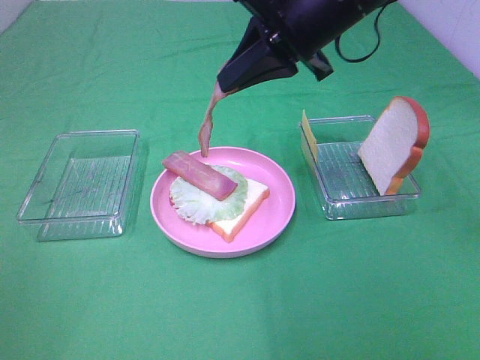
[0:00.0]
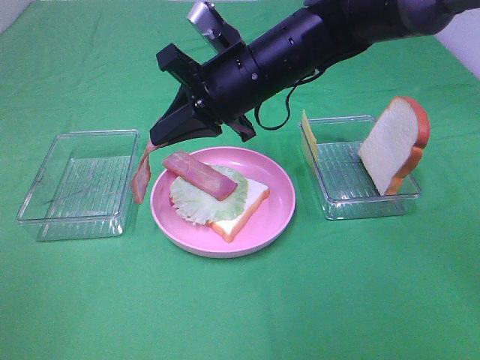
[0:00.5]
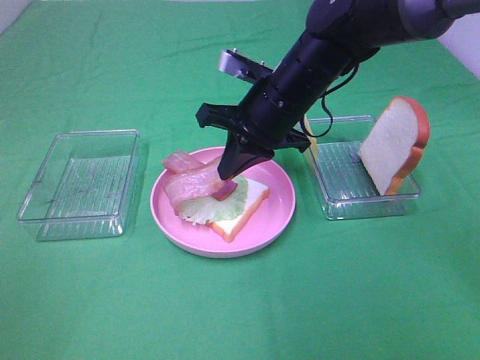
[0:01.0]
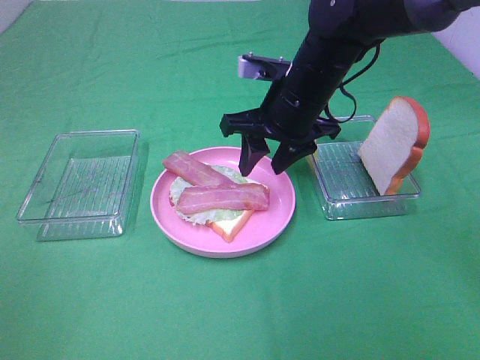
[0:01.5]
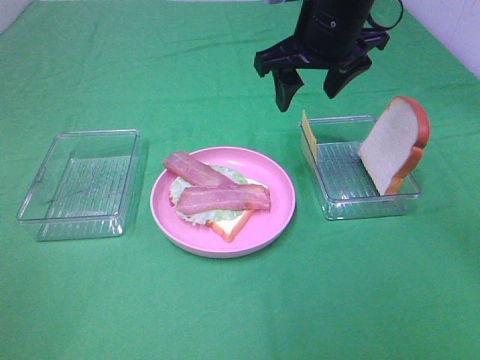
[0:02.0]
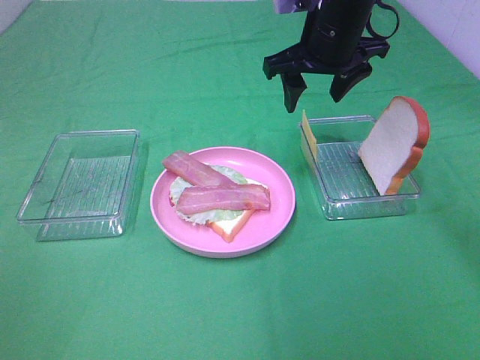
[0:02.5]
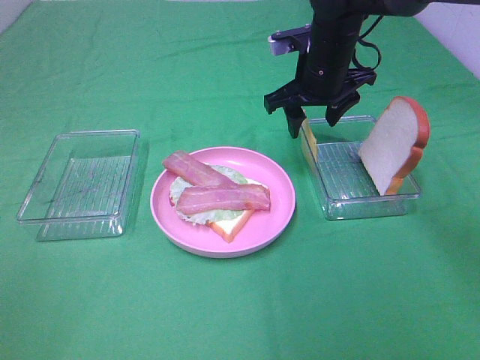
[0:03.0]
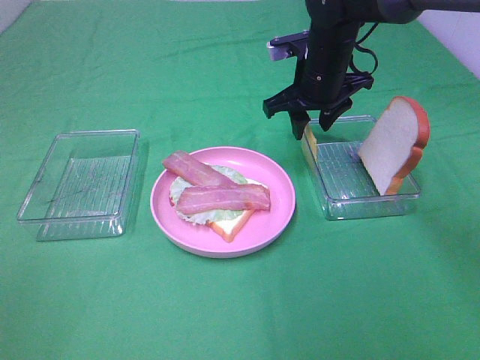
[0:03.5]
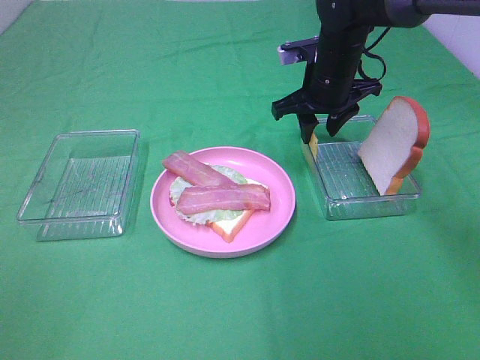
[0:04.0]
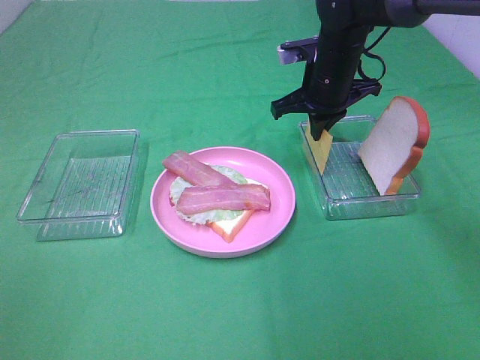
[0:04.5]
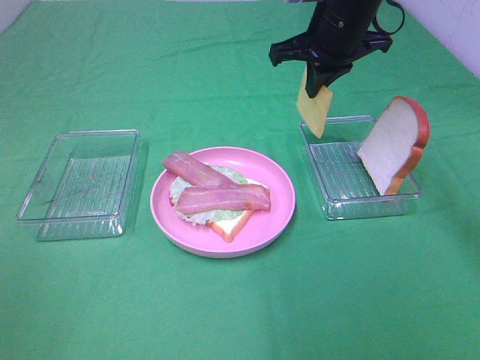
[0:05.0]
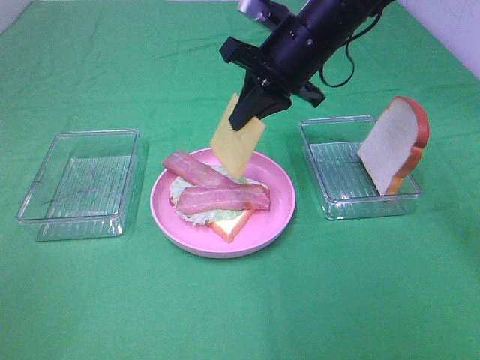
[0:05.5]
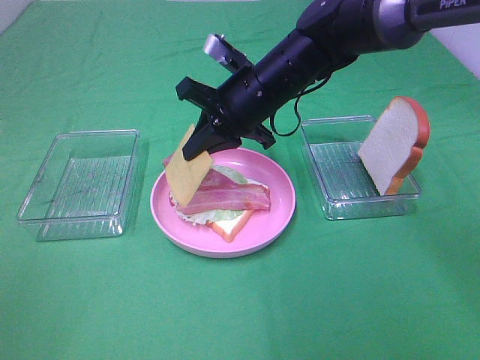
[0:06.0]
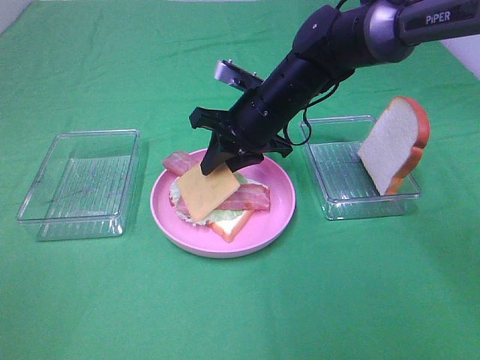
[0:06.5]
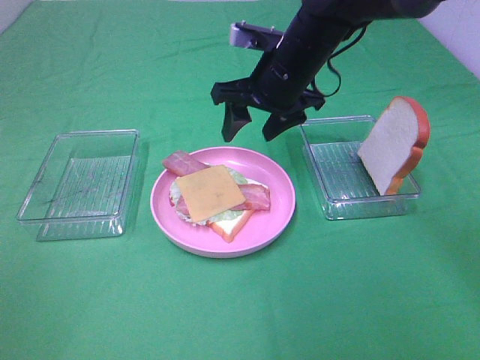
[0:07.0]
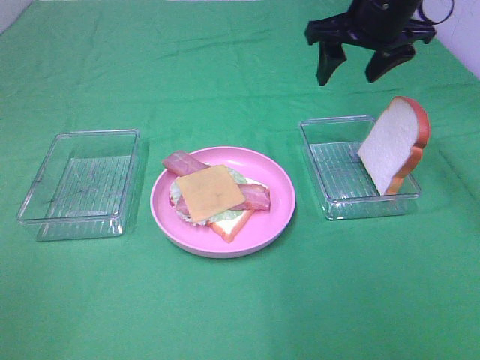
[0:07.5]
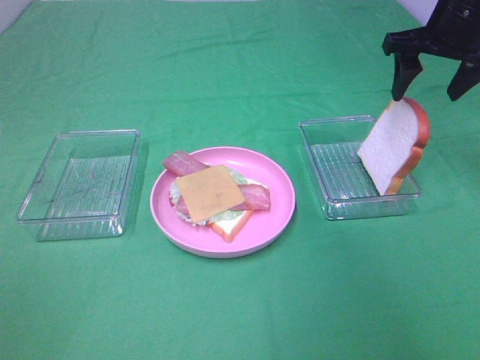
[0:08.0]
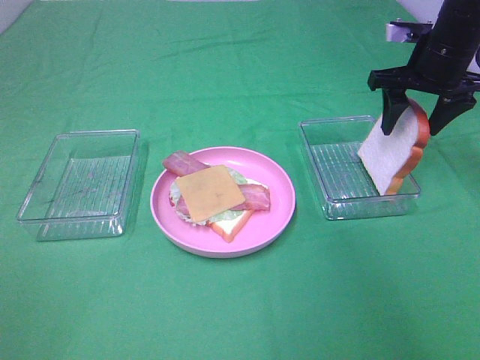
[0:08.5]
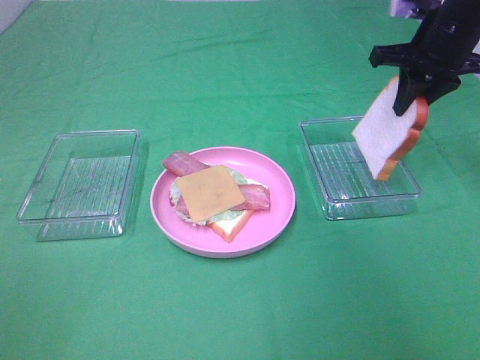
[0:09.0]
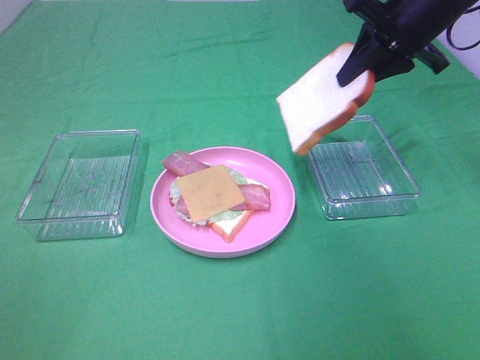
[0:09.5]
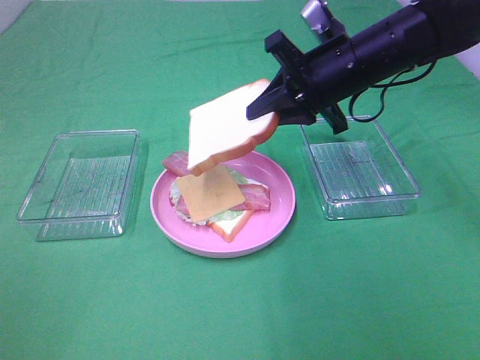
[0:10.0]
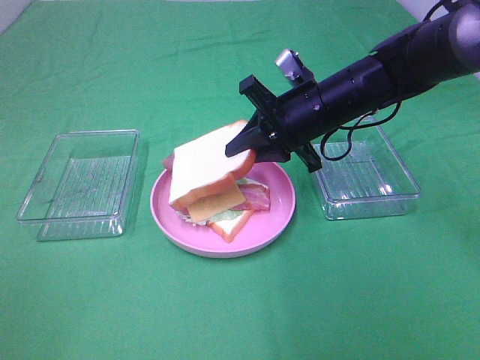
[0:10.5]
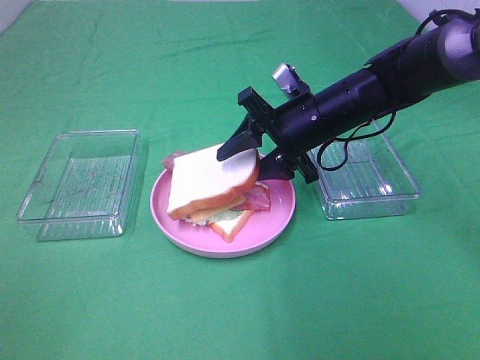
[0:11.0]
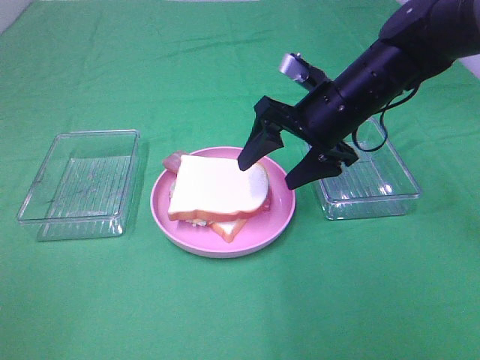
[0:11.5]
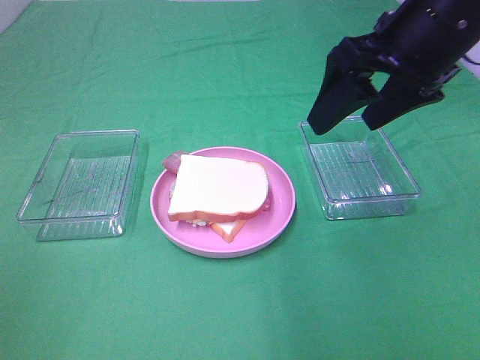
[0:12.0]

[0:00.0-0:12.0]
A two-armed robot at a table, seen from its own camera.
Task of the whole recording: Make sandwiches.
Step, 0:00.0 to 0:01.5: Right hand:place bacon on bacon.
Step, 0:02.0 to 0:04.0: Right hand:grab the cheese slice.
Step, 0:04.5 to 0:06.5: Right hand:place the cheese slice on top of the bacon.
Step, 0:07.0 to 0:08.5: Right hand:grab the bread slice.
Step, 0:09.0 to 0:11.5: Right hand:place the bread slice on the cheese slice.
0:00.0 to 0:02.0: The right gripper moves some 10 cm downward and comes back, and opens its fingers.
0:02.0 to 0:04.0: The right gripper goes roughly 10 cm downward and forward.
0:04.0 to 0:06.0: The right gripper shifts about 10 cm to the left and backward, and closes.
0:06.0 to 0:08.0: The right gripper shifts roughly 25 cm to the right and upward, and opens up.
0:08.0 to 0:10.0: The right gripper moves to the left and downward, approximately 15 cm, and closes.
0:10.0 to 0:12.0: The right gripper shifts about 15 cm upward and backward, and opens its fingers.

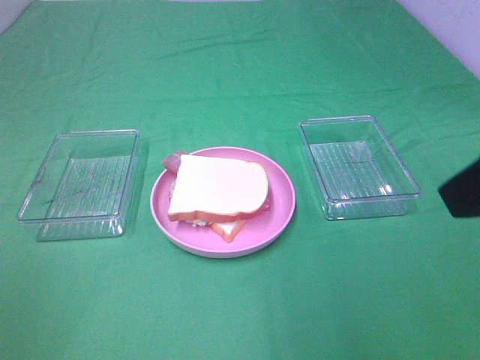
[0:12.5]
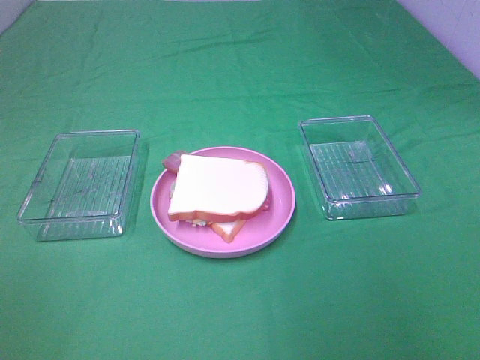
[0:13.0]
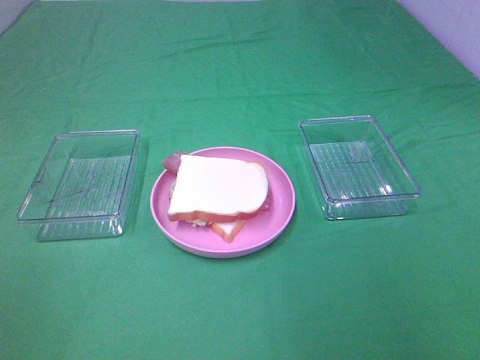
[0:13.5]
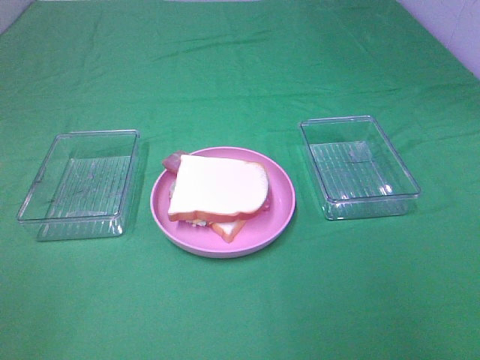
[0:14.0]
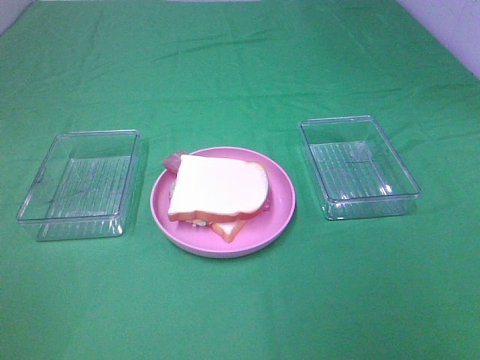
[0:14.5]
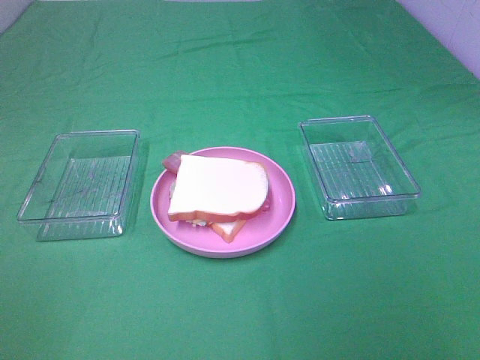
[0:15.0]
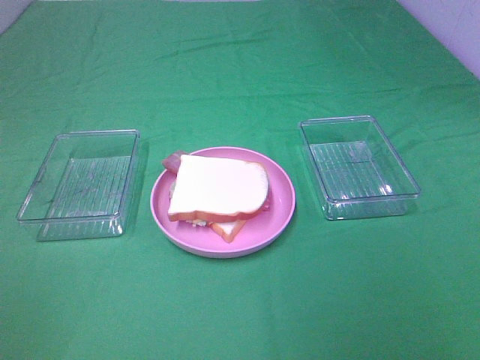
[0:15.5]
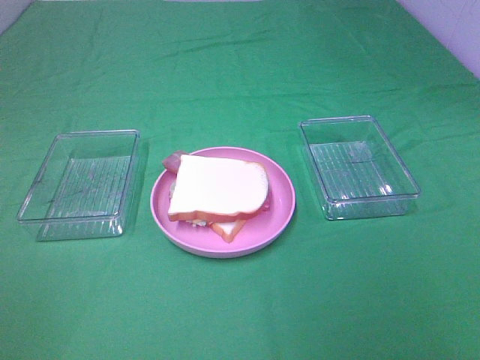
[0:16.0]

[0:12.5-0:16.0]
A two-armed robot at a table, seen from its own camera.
Task of the whole recording: Make sandwiches.
0:12.5 to 0:14.5: The right gripper travels backward and to the right by about 15 cm.

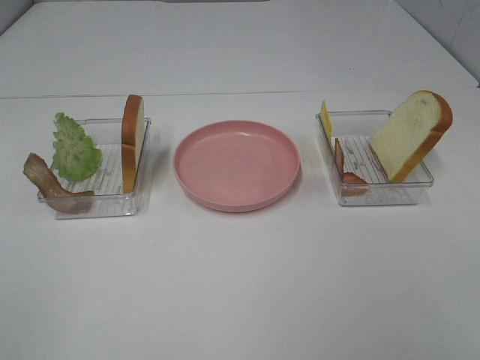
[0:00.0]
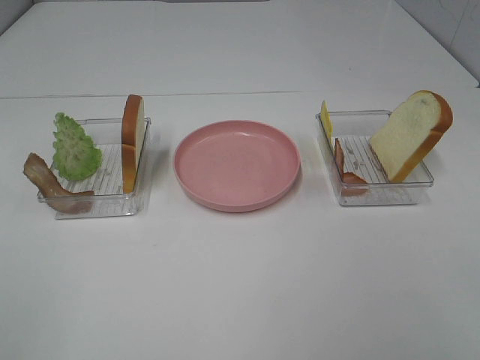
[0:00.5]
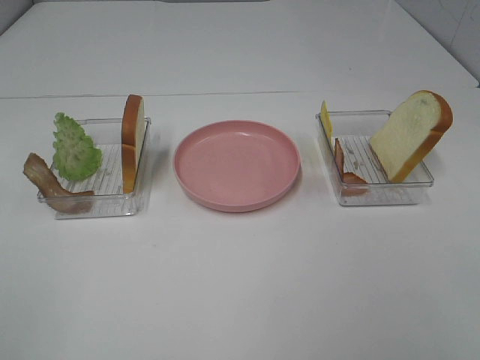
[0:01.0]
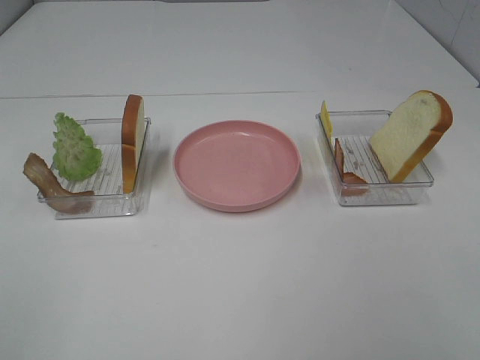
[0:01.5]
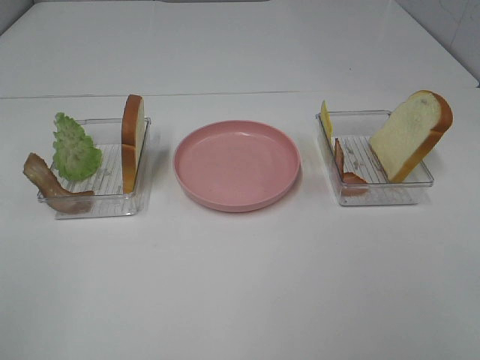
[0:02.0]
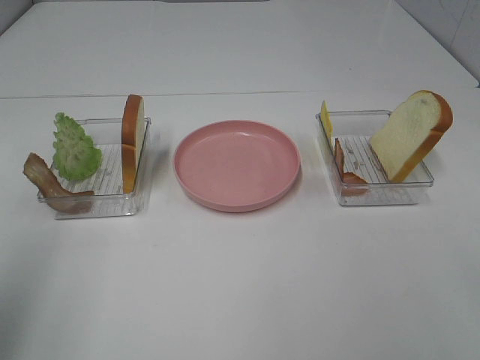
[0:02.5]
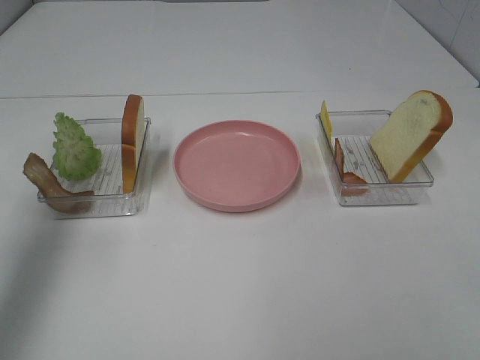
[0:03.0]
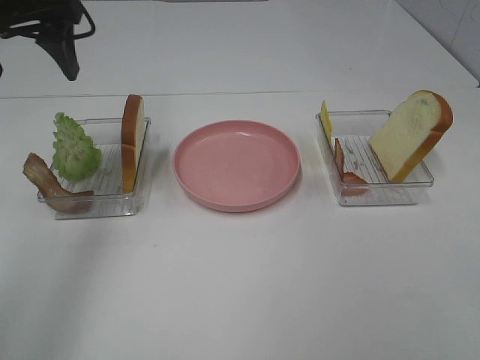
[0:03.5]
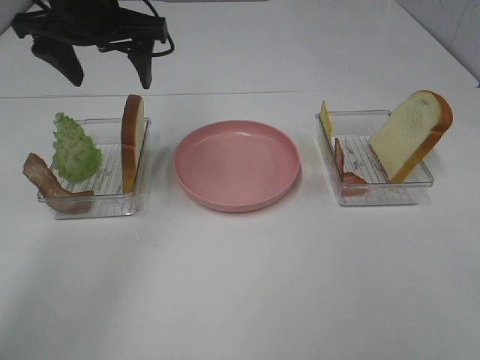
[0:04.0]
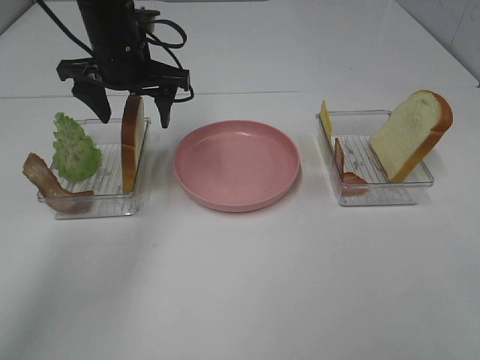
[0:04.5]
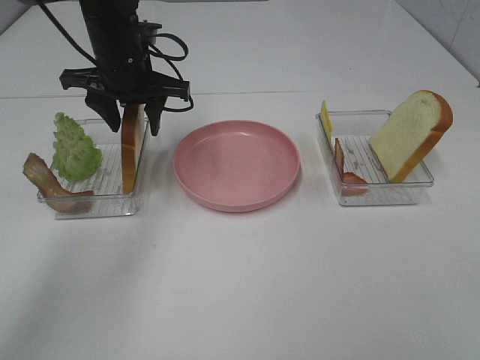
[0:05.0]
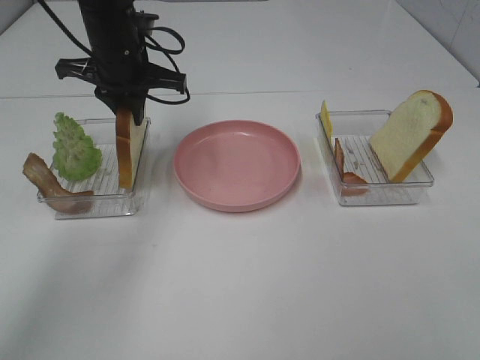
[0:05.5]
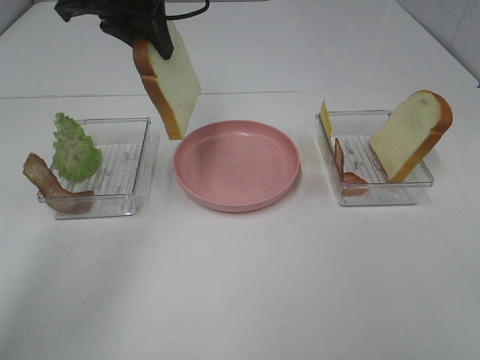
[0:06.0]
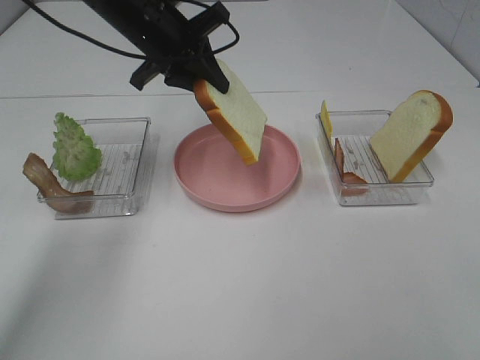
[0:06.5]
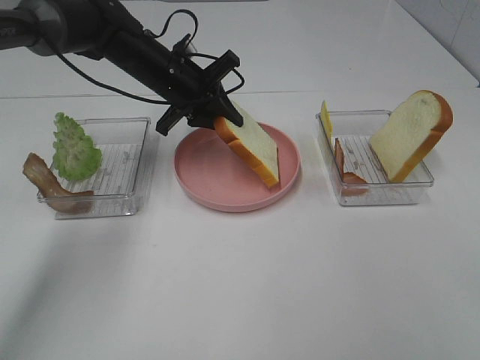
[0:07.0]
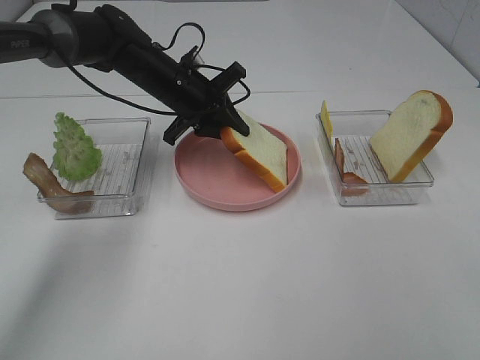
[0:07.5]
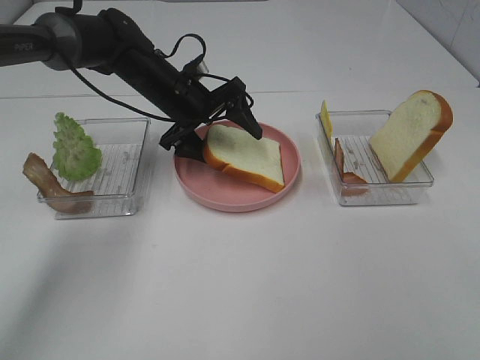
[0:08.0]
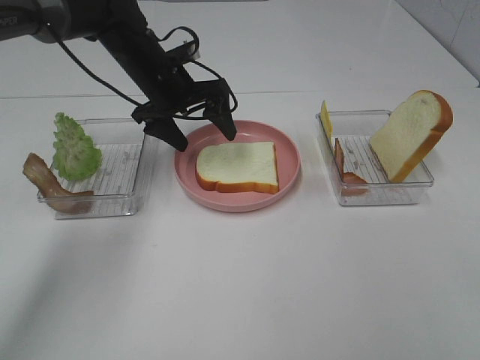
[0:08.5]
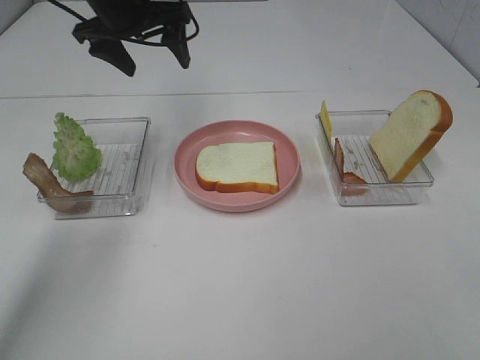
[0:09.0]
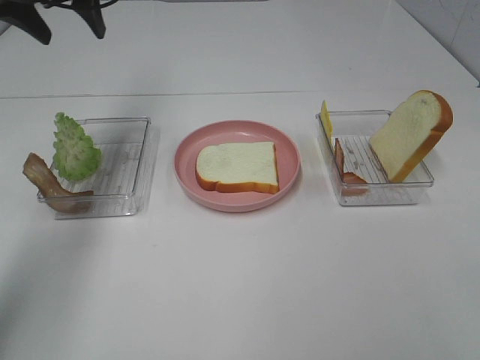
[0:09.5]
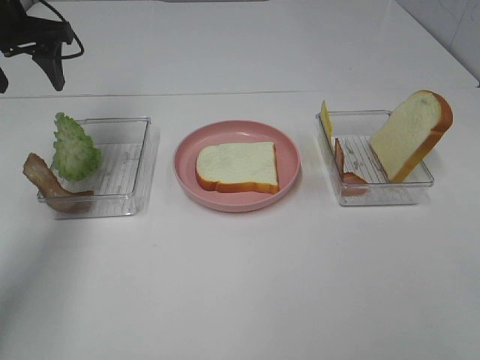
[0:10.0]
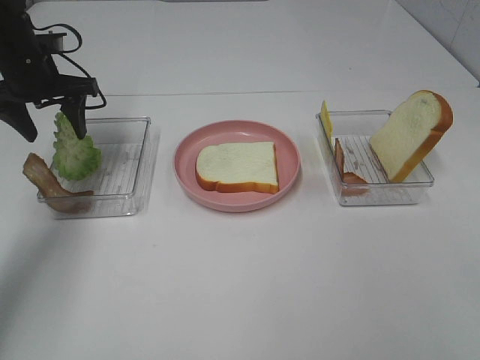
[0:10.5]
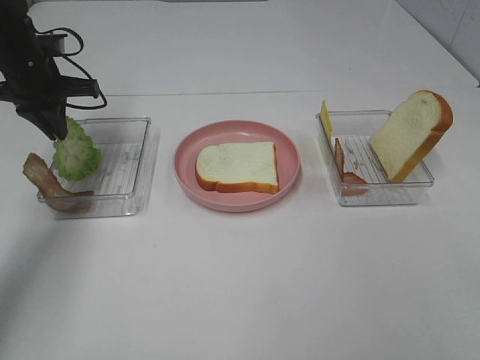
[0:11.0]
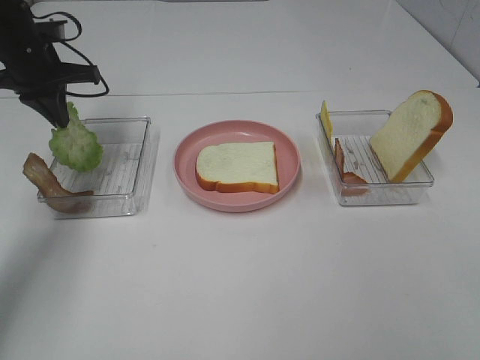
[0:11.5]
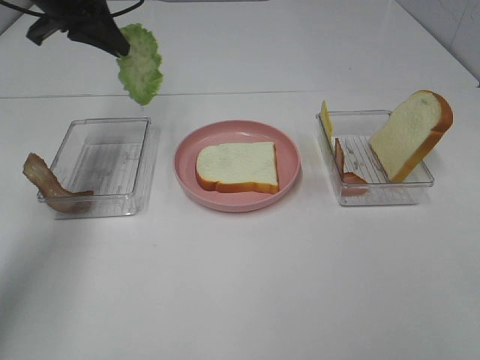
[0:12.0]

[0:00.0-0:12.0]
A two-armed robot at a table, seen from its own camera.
Task of the whole recording: Make sandwiches.
Step, 0:00.0 to 0:05.0: Left hand:grab the bread slice.
Step, 0:05.5 to 0:08.5: Left hand:place the bread slice on the plate.
Step, 0:09.0 to 0:11.0: Left hand:grab the lettuce slice.
0:02.0 to 0:04.0: The left gripper moves forward and to the right, approximately 40 cm.
0:04.0 to 0:06.0: The left gripper goes downward and returns, some 10 cm each way, and closes.
0:06.0 to 0:08.0: The left gripper shifts approximately 20 cm downward, and opens its fingers.
0:08.0 to 0:10.0: The left gripper goes approximately 25 cm to the left and upward.
0:10.0 to 0:12.0: The left gripper goes some 5 cm to the right, moves some 10 cm downward and comes back, and closes up.
